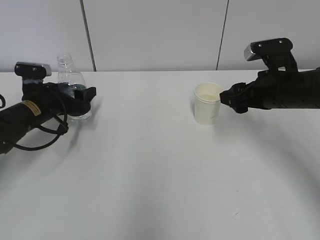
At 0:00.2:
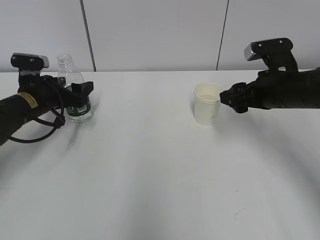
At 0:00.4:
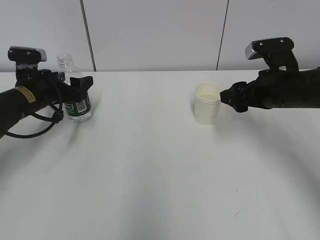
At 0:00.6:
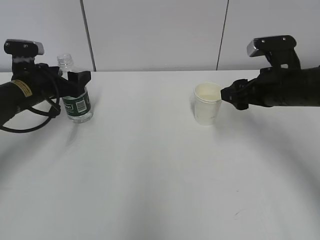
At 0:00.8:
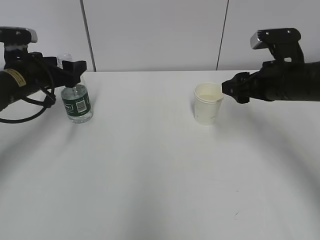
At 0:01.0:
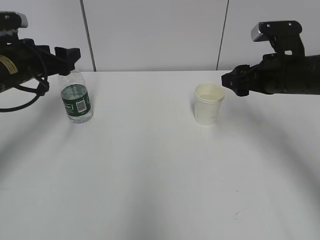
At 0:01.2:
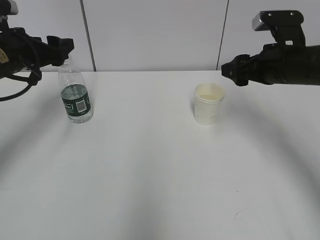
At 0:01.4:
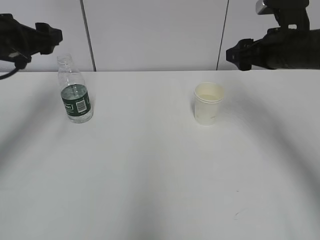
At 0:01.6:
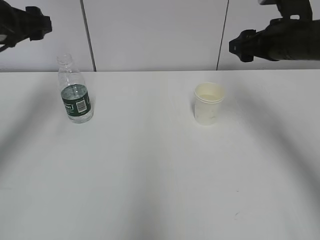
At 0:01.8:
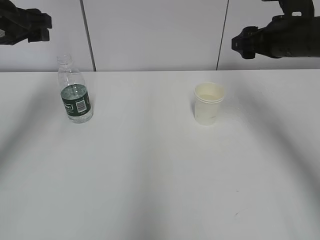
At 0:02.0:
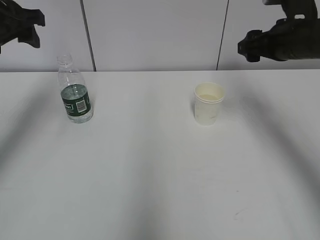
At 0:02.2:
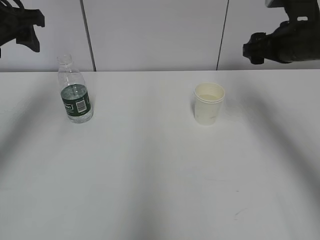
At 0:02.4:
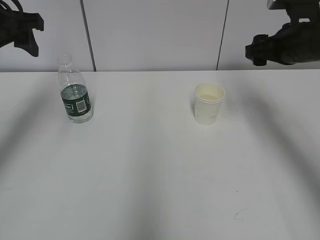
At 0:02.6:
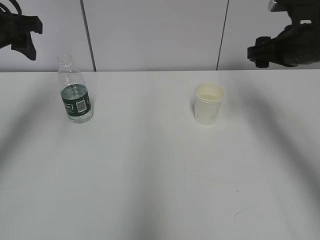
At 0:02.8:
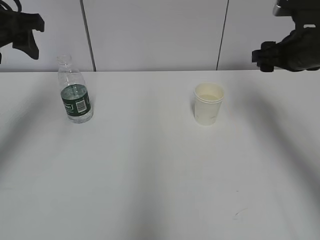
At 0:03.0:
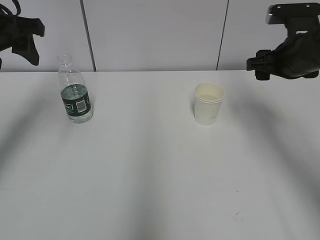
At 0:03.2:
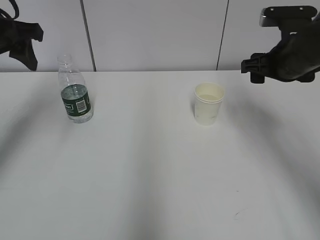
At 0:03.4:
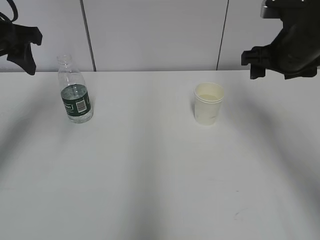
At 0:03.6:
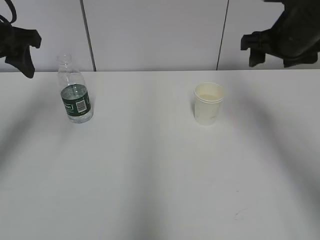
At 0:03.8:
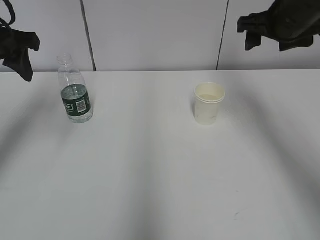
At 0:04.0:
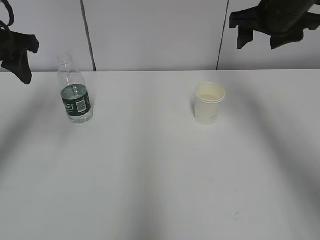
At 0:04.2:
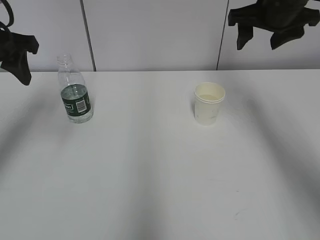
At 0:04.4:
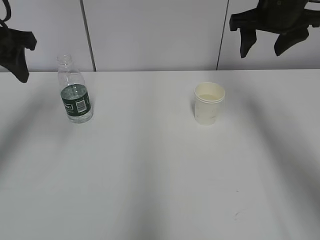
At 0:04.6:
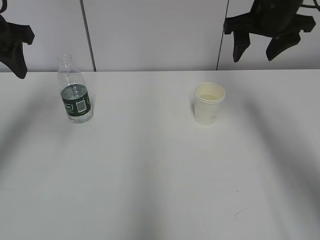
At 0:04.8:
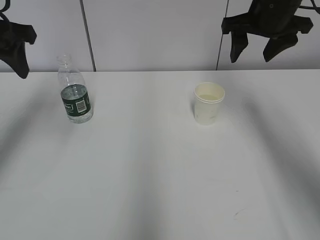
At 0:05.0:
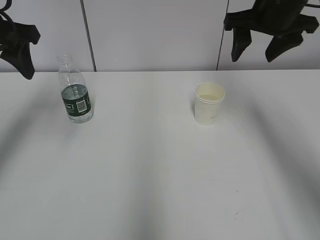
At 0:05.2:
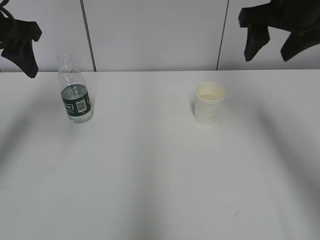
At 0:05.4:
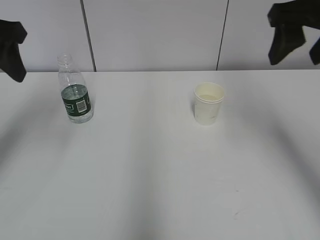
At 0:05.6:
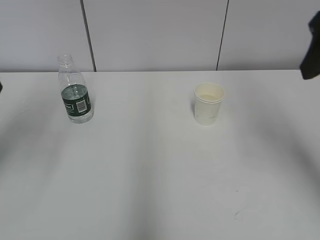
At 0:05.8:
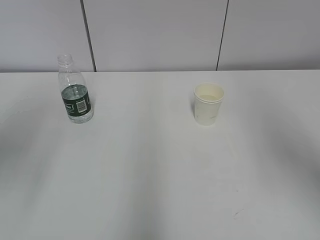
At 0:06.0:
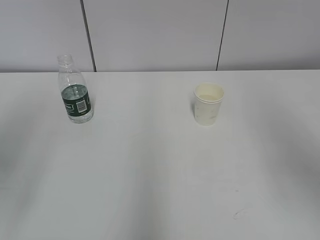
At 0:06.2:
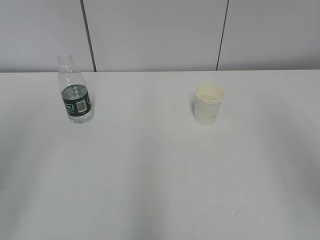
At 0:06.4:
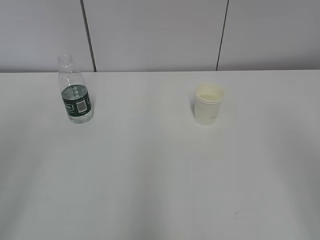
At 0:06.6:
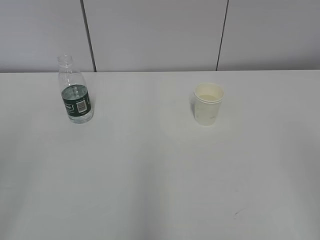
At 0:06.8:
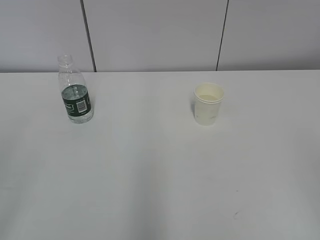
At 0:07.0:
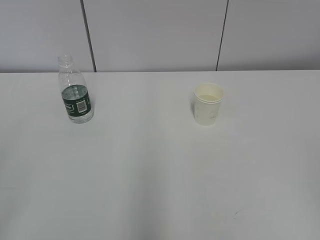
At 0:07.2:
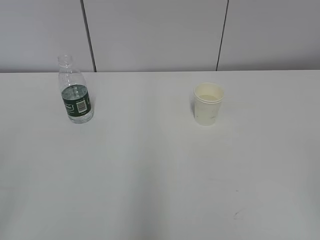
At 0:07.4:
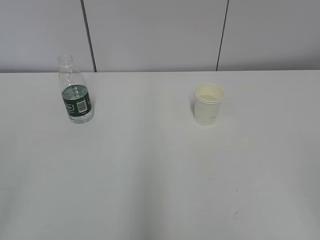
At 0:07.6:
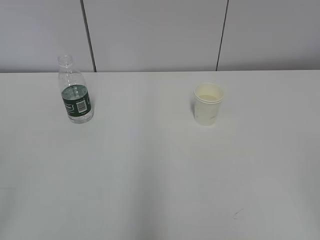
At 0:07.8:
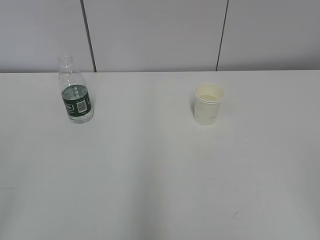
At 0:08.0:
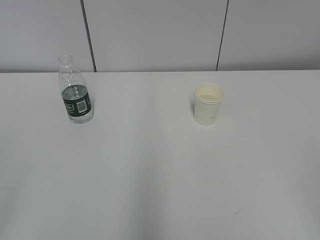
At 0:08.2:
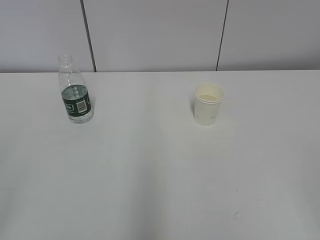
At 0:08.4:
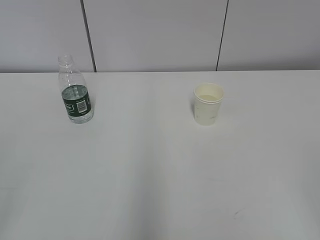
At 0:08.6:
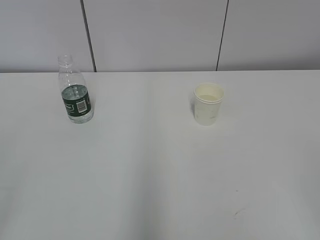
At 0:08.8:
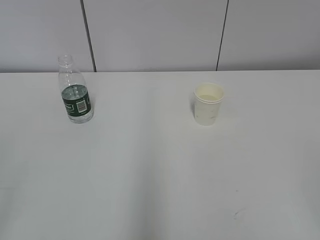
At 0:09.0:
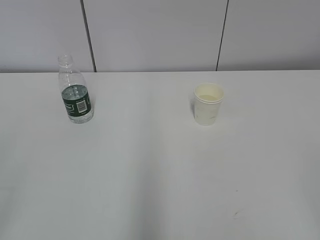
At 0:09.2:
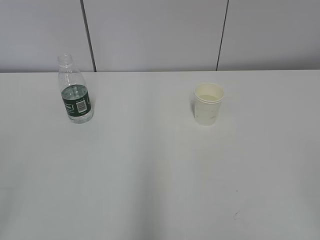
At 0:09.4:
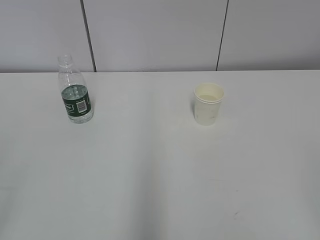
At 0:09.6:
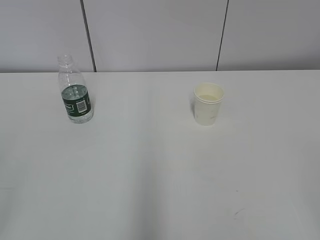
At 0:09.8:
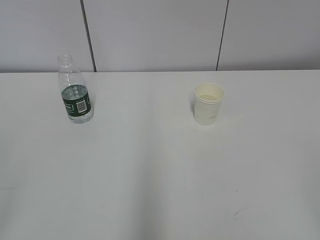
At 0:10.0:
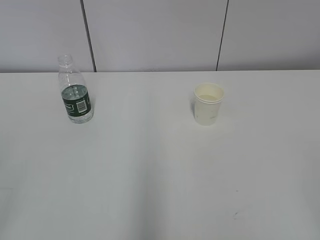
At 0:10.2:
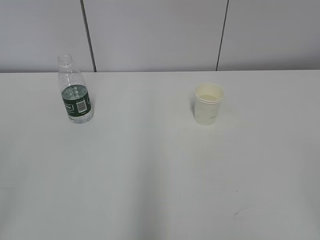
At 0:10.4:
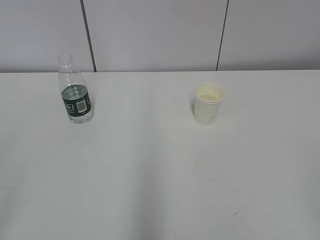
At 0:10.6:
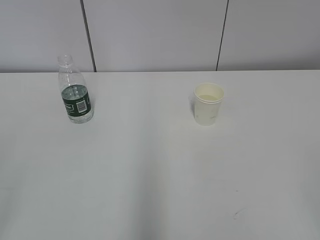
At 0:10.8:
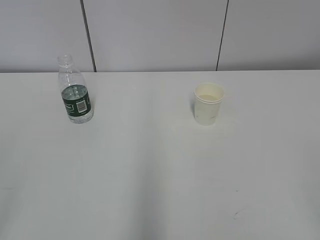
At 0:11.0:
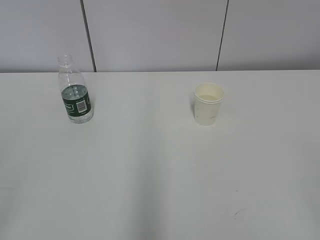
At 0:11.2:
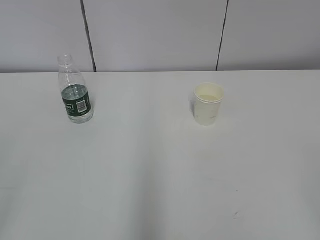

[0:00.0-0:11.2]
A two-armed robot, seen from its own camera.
0:00.0 to 0:01.6: The right gripper is displaced upward by some 5 cm. Meanwhile the left gripper is displaced upward by about 20 cm.
0:03.2 to 0:04.8: The right gripper is displaced upward by some 5 cm.
0:04.8 to 0:06.4: The grippers both shift backward by roughly 30 cm.
0:08.0 to 0:11.2: Neither gripper changes place.
